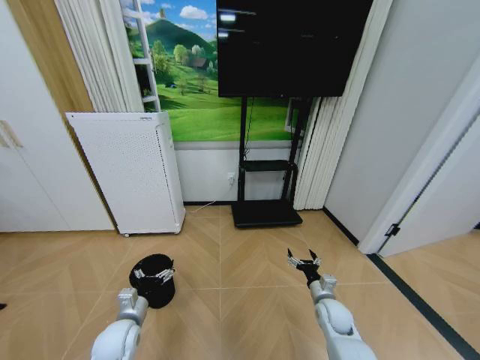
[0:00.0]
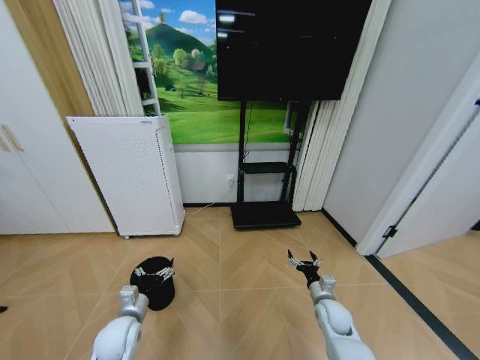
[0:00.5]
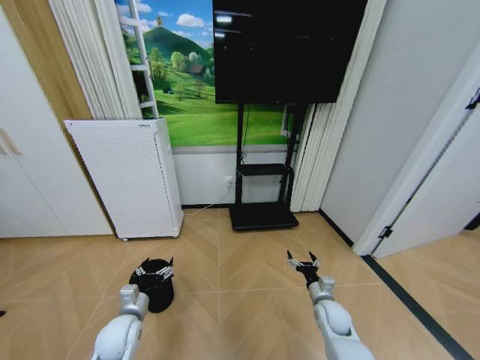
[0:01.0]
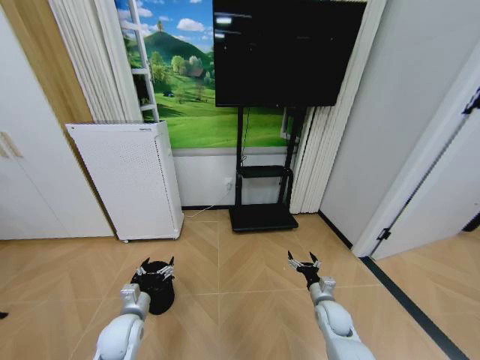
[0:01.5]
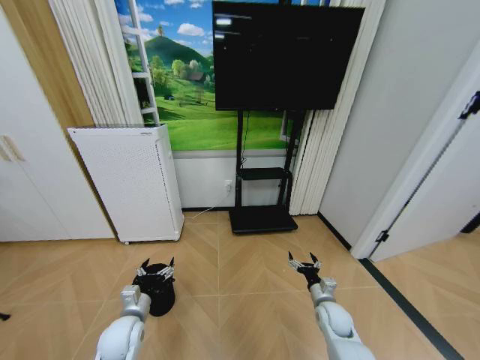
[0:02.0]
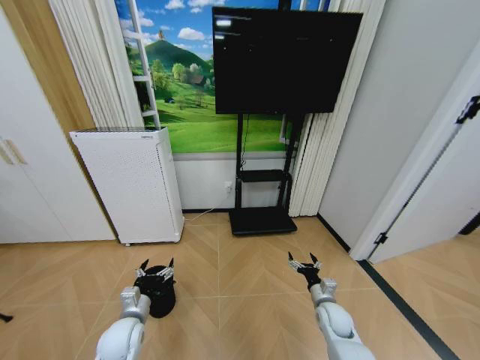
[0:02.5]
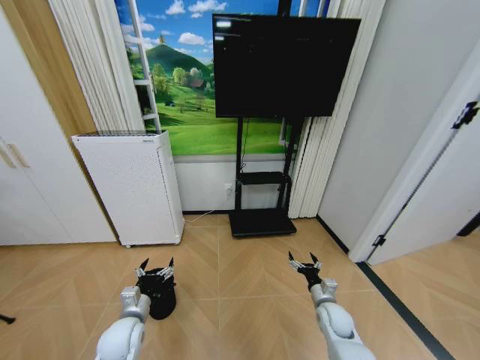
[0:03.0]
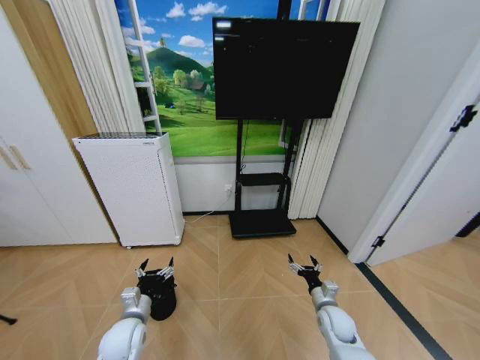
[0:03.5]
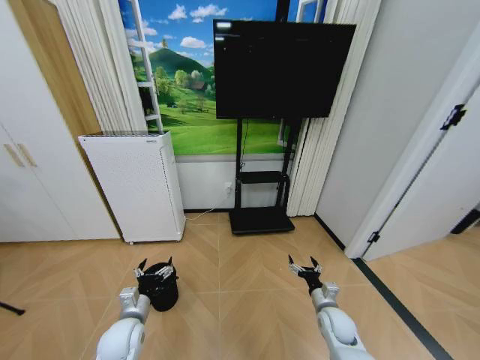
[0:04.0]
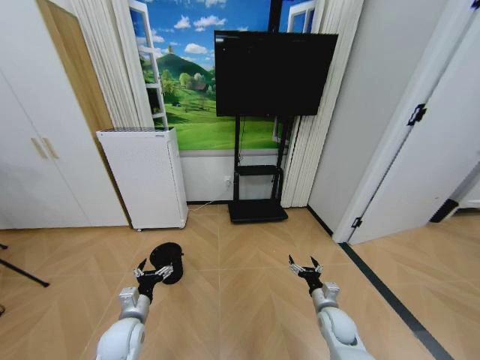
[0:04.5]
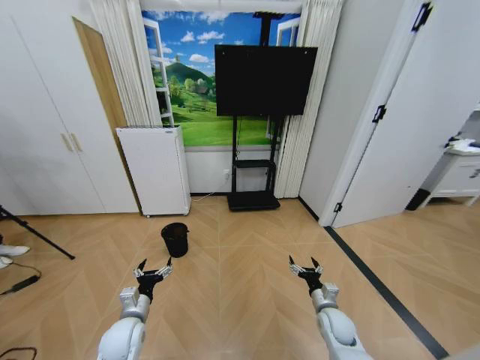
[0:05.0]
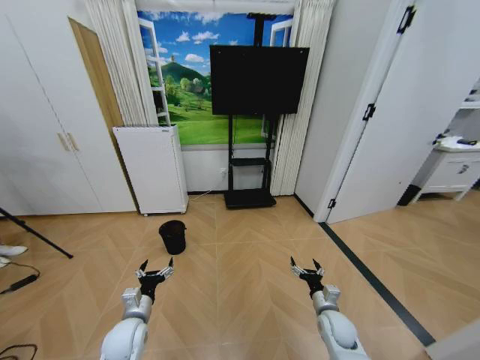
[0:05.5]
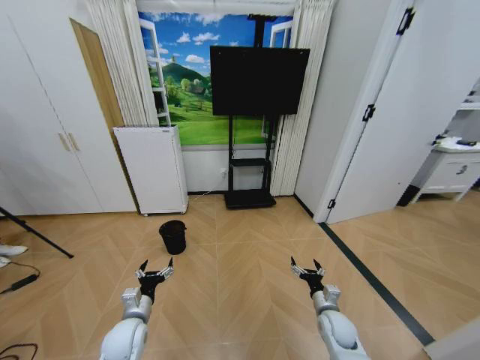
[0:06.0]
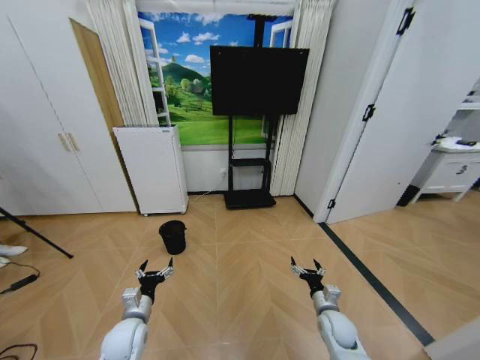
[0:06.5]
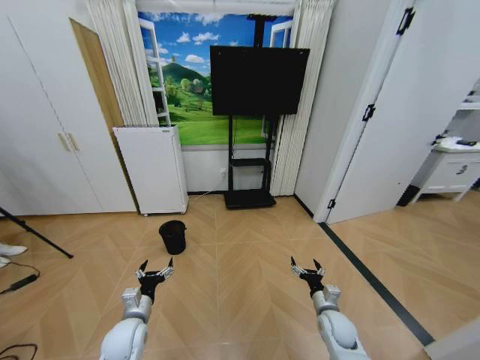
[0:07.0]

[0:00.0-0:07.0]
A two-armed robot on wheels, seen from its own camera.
Task of the whole recording: Pick up the trash bin and place the garbage on the floor into it.
0:02.0 to 0:03.5: The two grippers keep their place.
0:05.0 to 0:07.0: Neither gripper changes place.

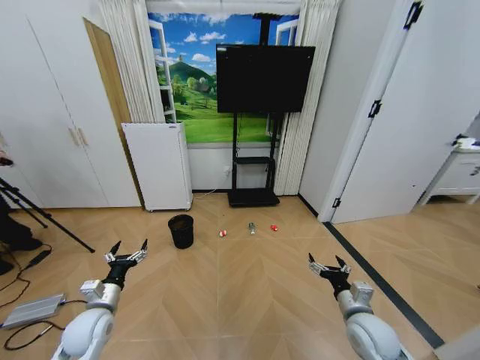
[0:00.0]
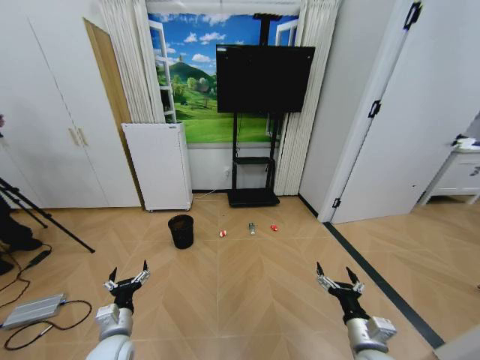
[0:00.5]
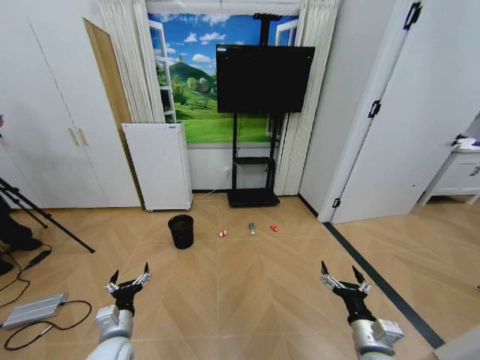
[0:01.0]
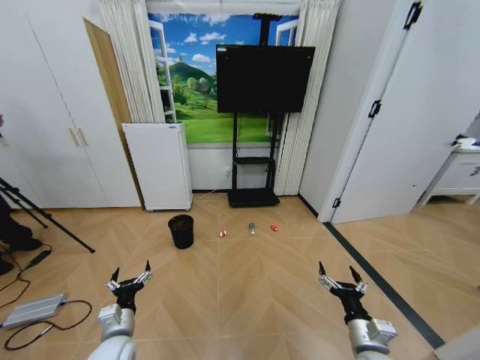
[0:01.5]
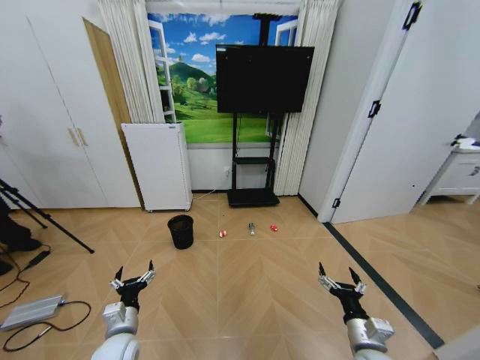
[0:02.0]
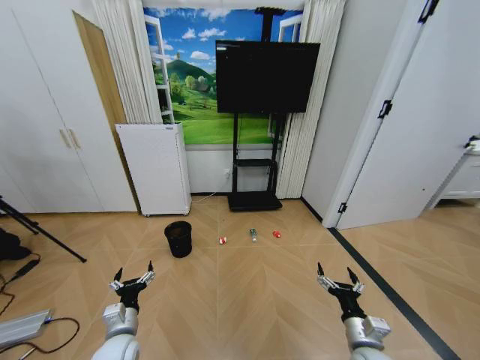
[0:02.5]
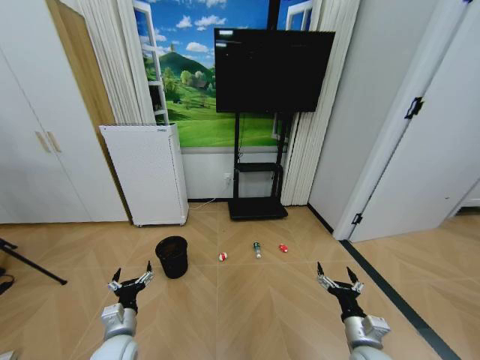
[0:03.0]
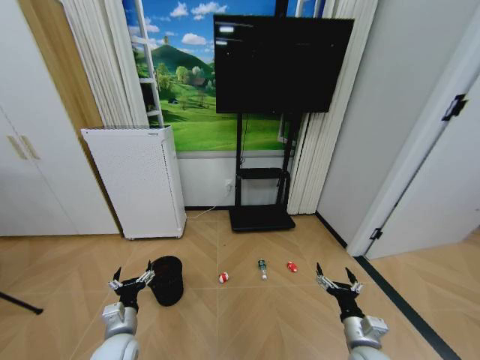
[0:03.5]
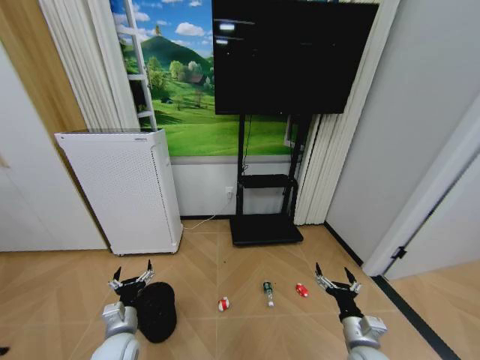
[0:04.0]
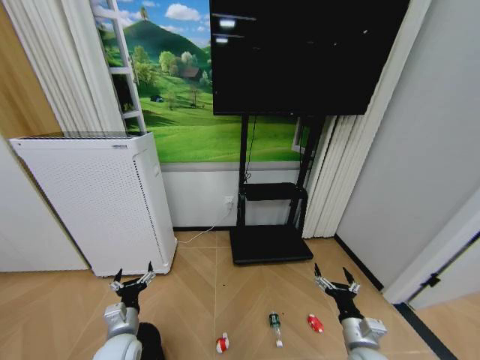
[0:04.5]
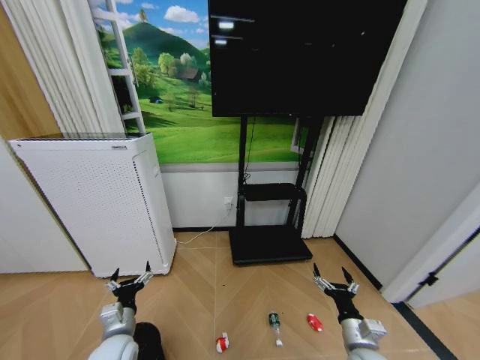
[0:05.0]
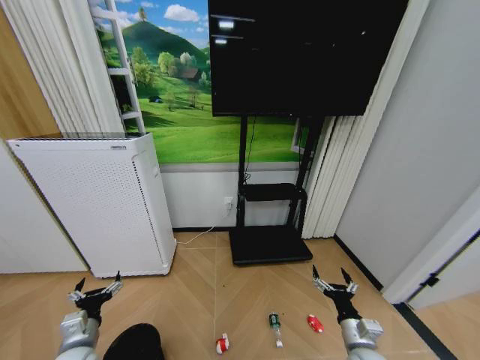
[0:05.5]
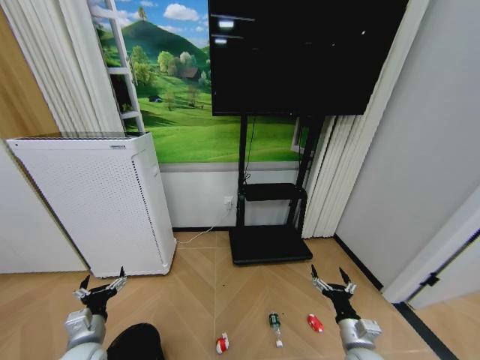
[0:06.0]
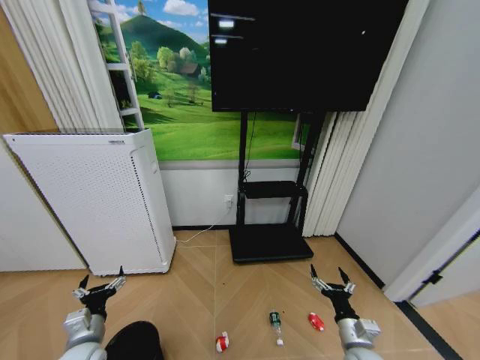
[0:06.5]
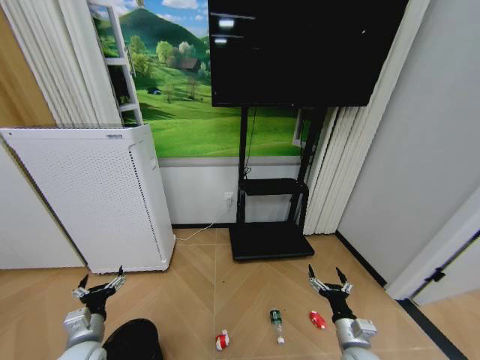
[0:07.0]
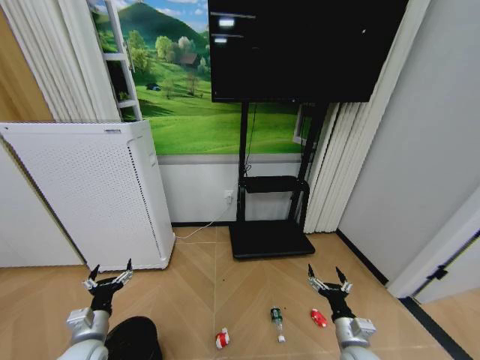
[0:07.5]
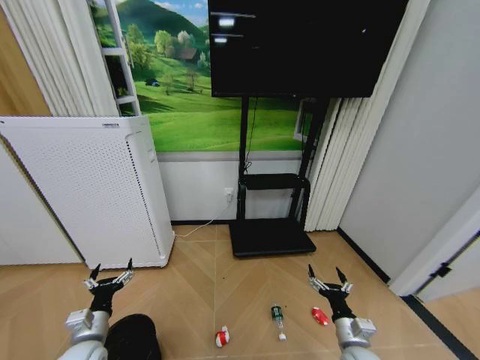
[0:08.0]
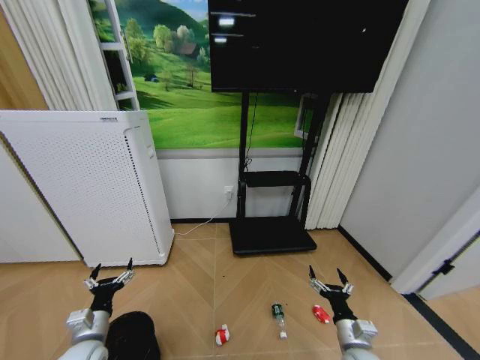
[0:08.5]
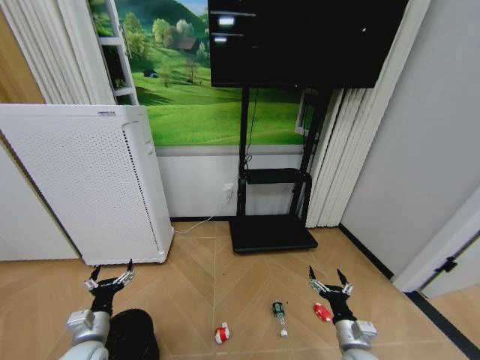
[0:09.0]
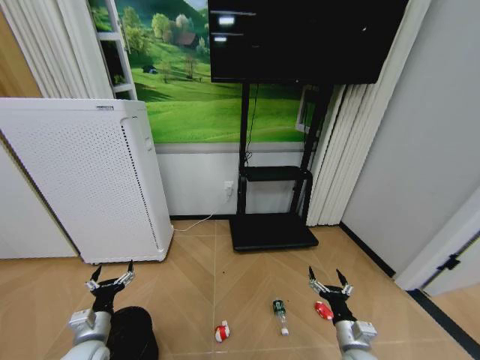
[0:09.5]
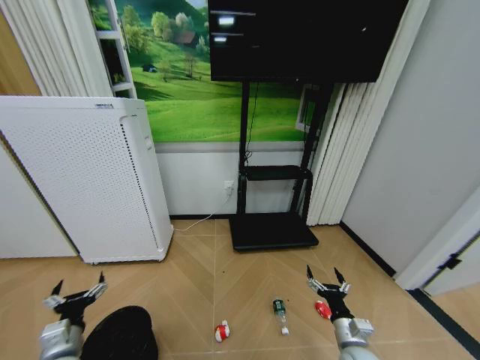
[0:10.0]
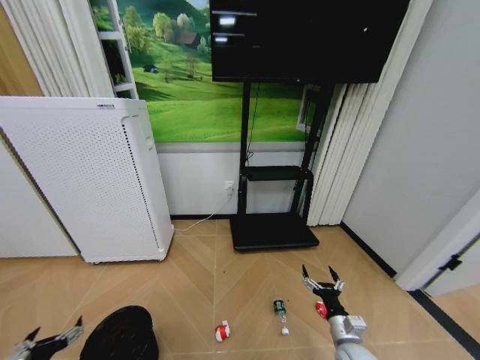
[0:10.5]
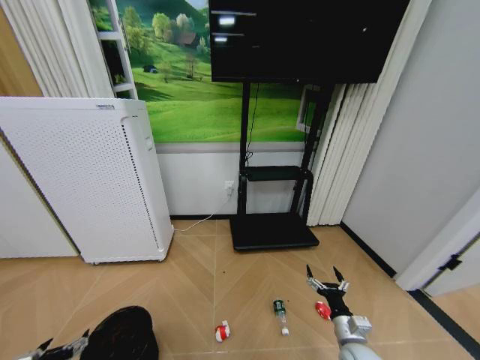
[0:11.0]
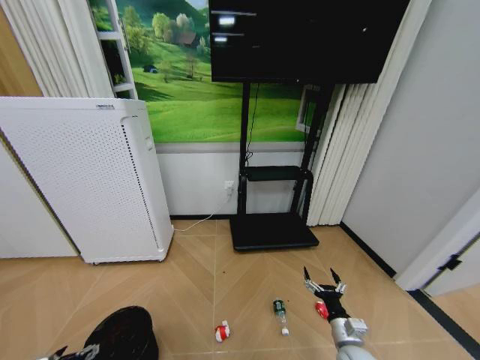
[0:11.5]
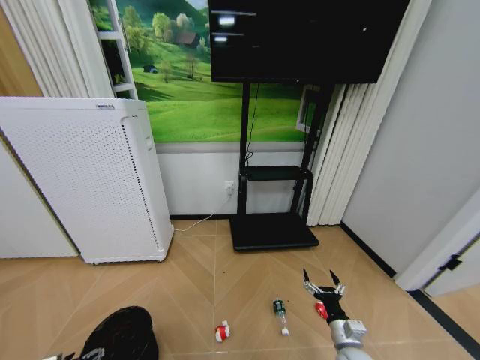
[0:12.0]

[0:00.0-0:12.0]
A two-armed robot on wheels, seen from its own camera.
Task of the whole recording: Pick up the trash bin and place the garbage on the floor into it.
0:04.0 to 0:06.0: The left gripper heads to the left, covering about 5 cm.
0:06.0 to 0:10.0: The grippers stay close to where they were, moving slightly.
0:10.0 to 0:12.0: The left gripper moves downward and to the left, about 10 cm.

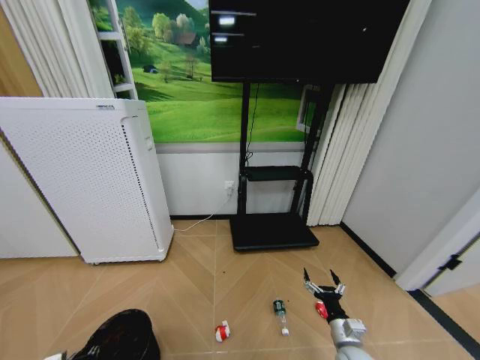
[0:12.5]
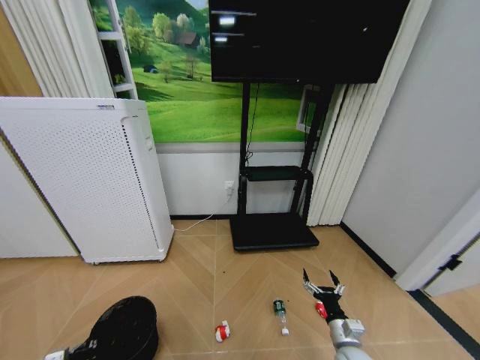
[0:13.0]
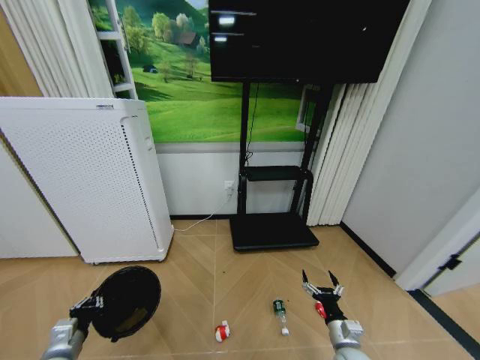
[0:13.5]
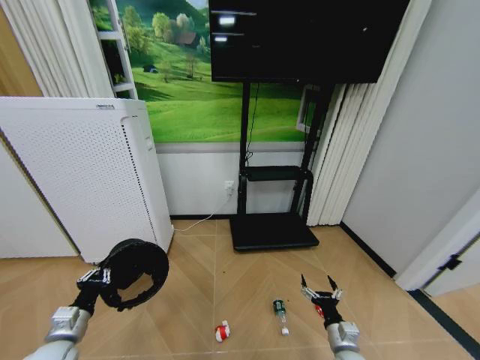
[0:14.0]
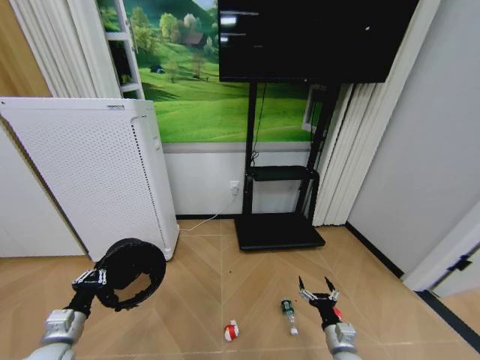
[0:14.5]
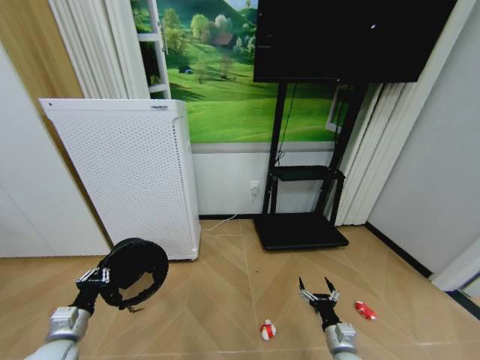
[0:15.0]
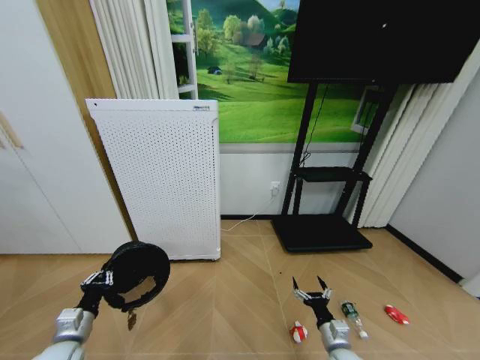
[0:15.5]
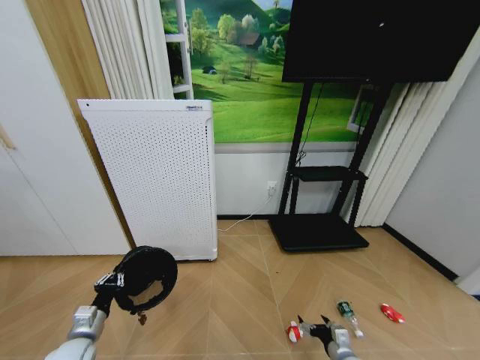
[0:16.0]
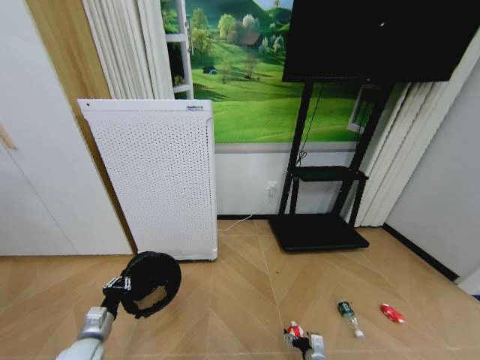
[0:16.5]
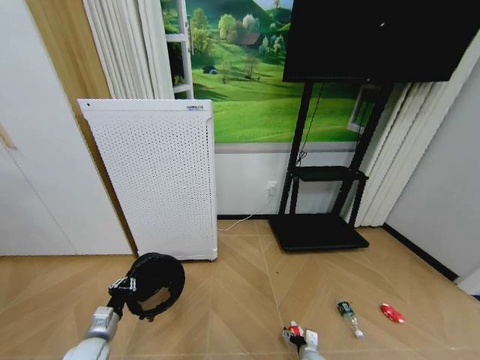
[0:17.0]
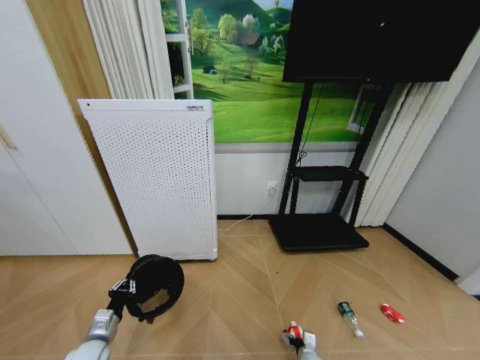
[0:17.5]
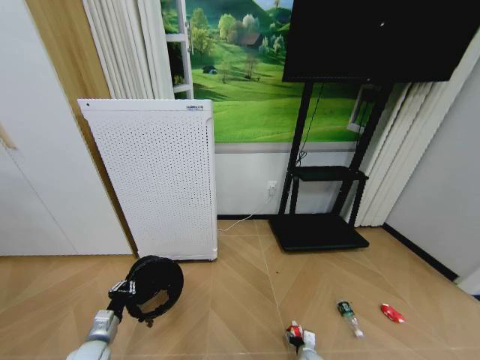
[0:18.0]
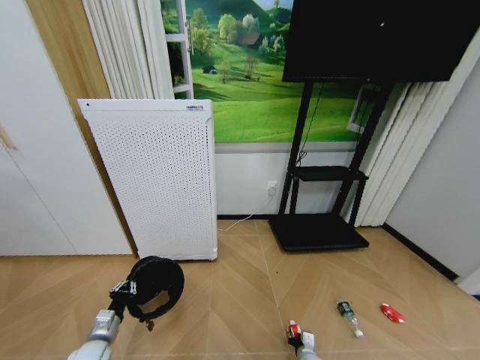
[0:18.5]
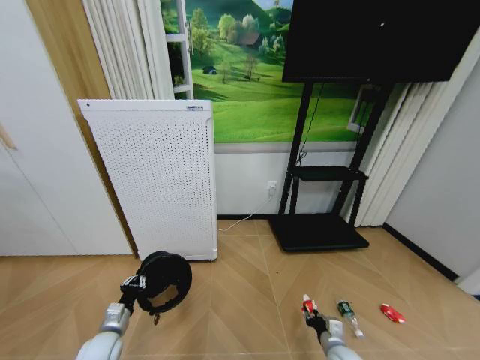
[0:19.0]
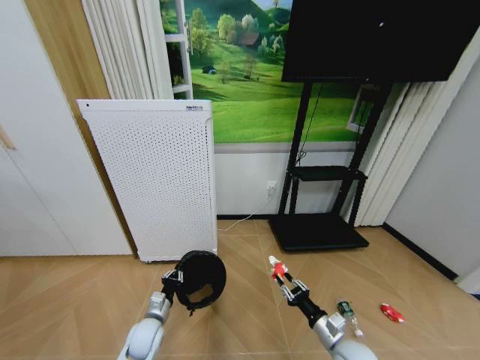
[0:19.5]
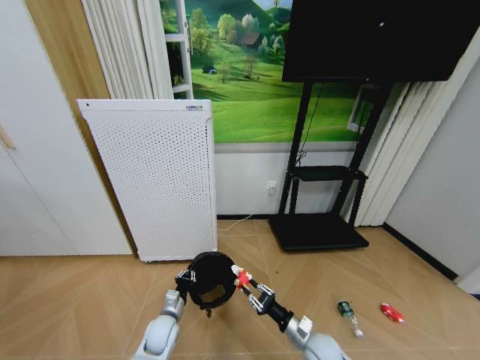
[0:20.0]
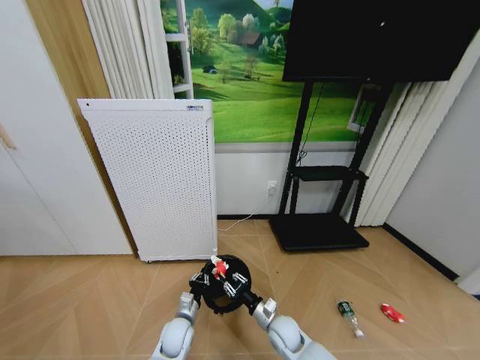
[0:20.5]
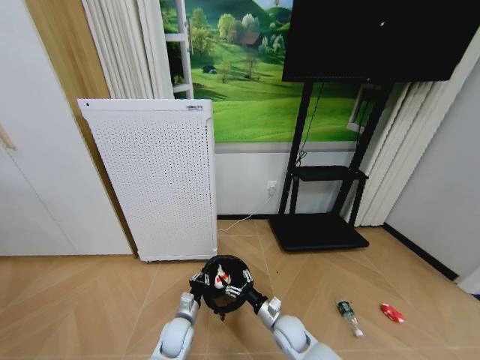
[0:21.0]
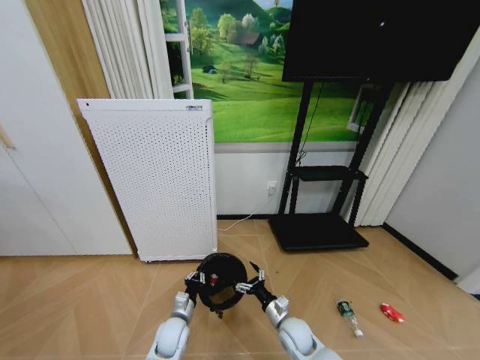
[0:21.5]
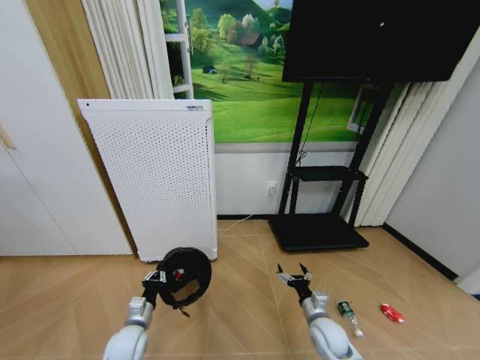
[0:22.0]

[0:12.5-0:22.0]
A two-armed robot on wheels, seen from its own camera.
Task of the whole recording: Pick up the trash bin and place the garbage on the floor into it.
0:12.5 to 0:14.5: The left gripper goes about 10 cm upward and forward, and closes.
0:14.5 to 0:16.5: The left gripper shifts approximately 5 cm downward. The right gripper travels downward by roughly 10 cm.
0:16.5 to 0:18.0: The right gripper travels downward by about 5 cm, and closes.
0:18.0 to 0:20.0: The right gripper travels upward by about 20 cm, and closes up, while the left gripper is displaced to the right and forward by approximately 20 cm.
0:20.0 to 0:22.0: The left gripper moves to the left, roughly 5 cm. Meanwhile the right gripper travels to the left and back again, some 10 cm each way, and opens.
